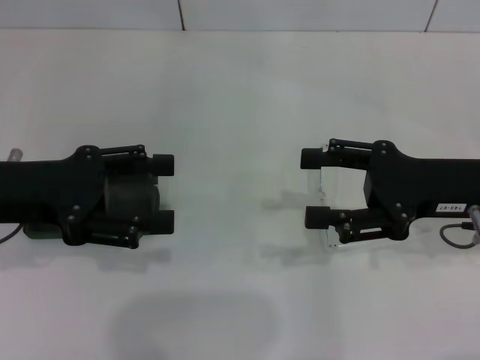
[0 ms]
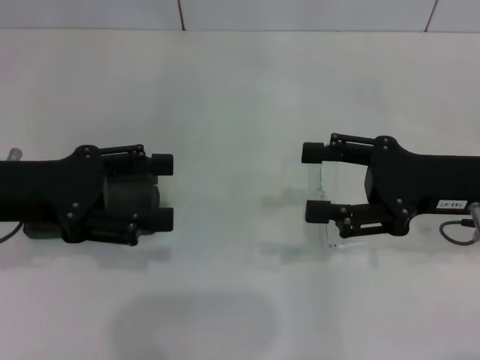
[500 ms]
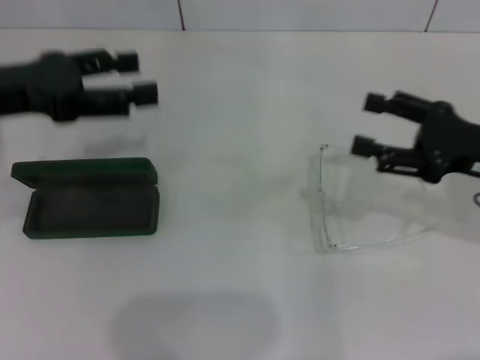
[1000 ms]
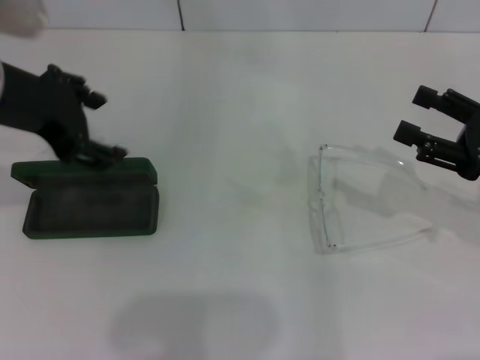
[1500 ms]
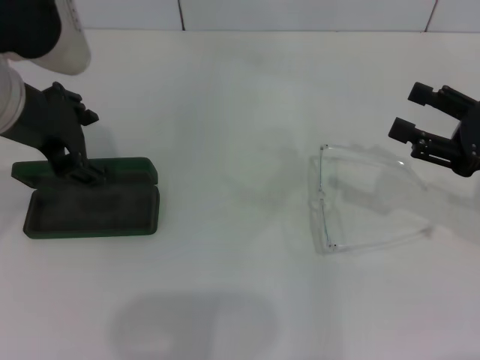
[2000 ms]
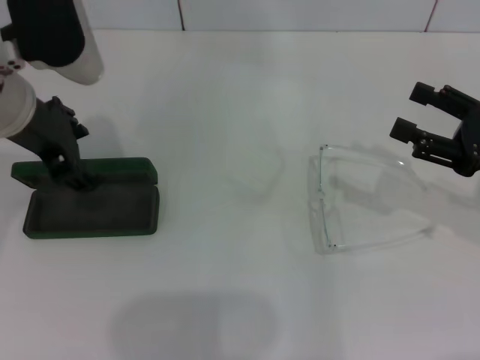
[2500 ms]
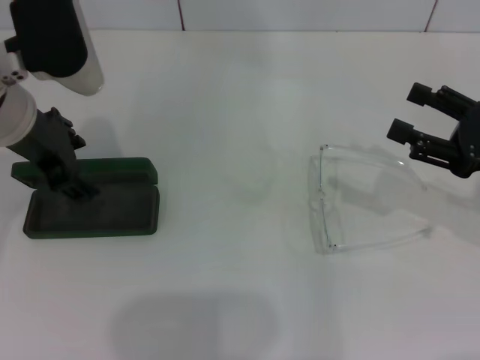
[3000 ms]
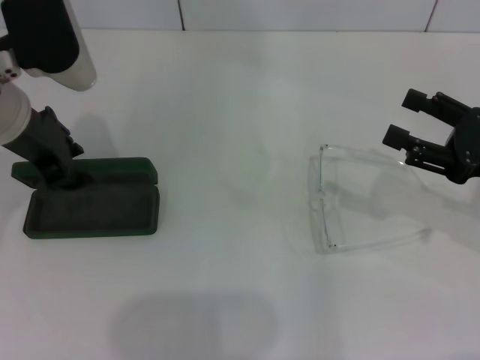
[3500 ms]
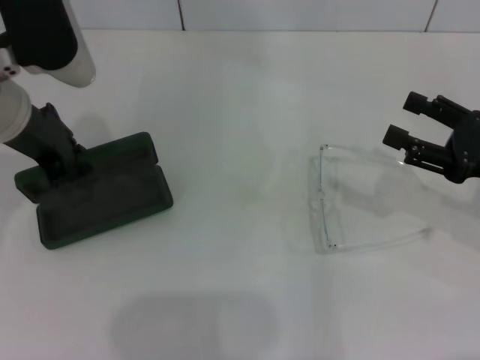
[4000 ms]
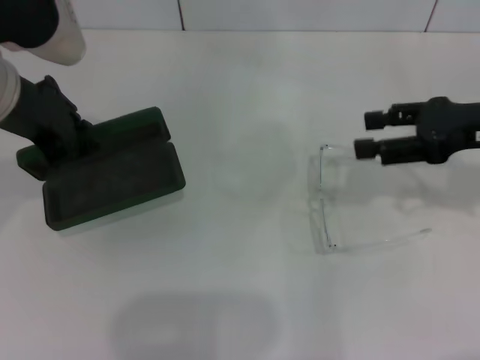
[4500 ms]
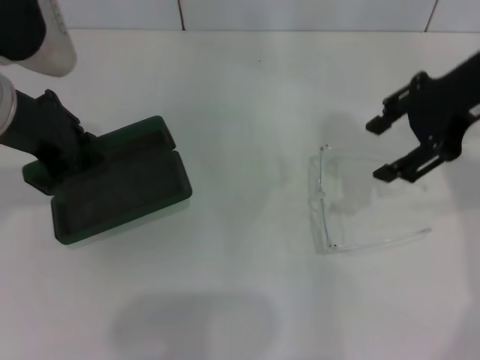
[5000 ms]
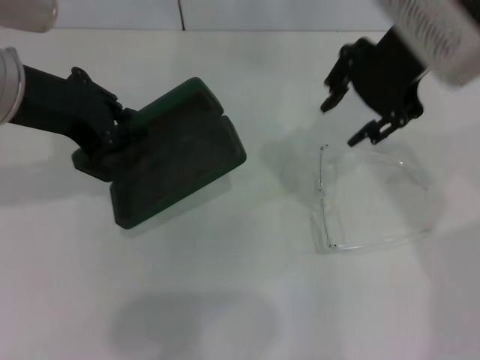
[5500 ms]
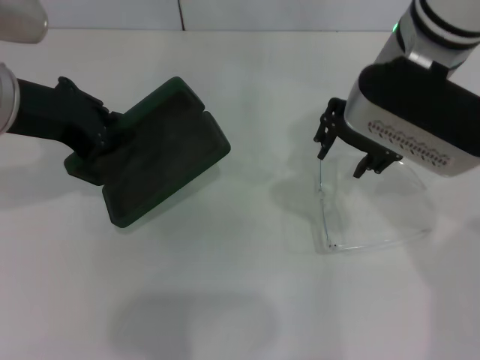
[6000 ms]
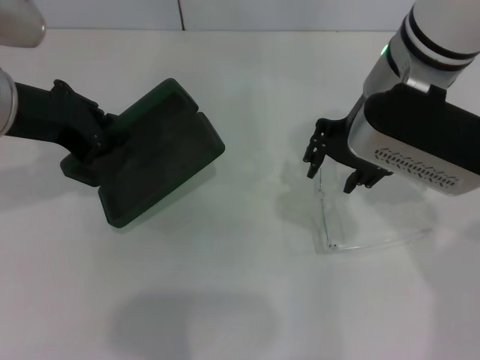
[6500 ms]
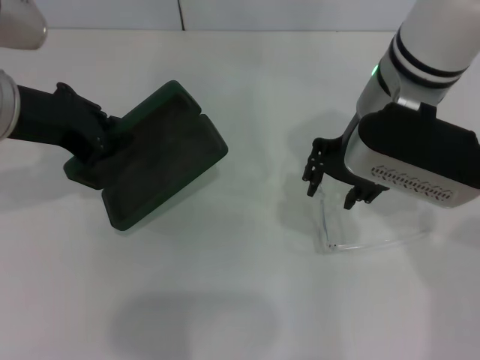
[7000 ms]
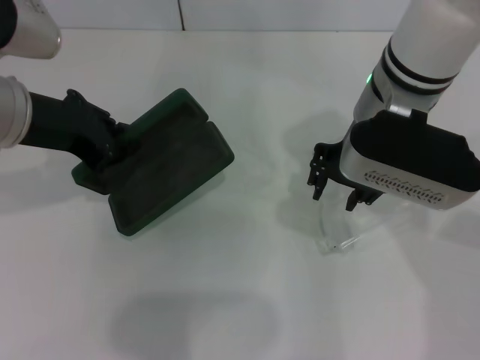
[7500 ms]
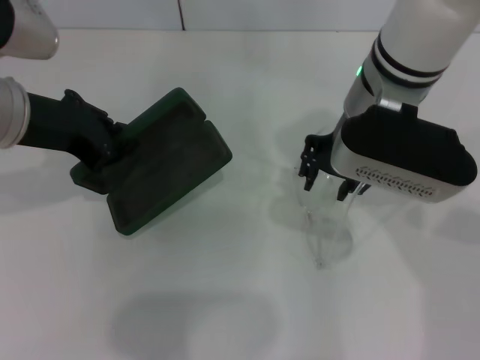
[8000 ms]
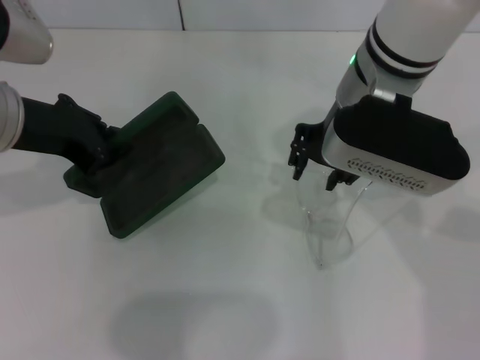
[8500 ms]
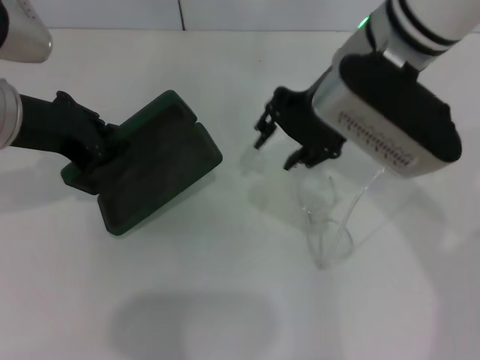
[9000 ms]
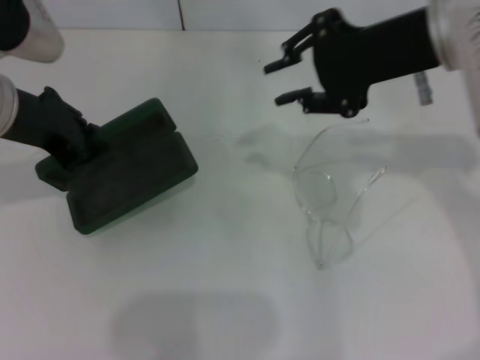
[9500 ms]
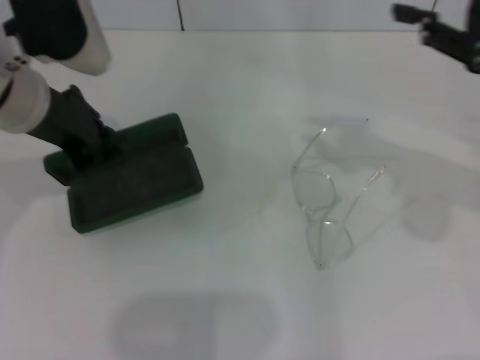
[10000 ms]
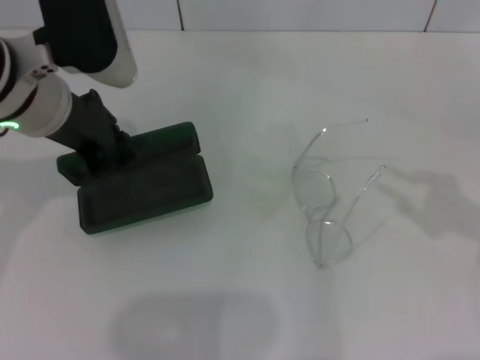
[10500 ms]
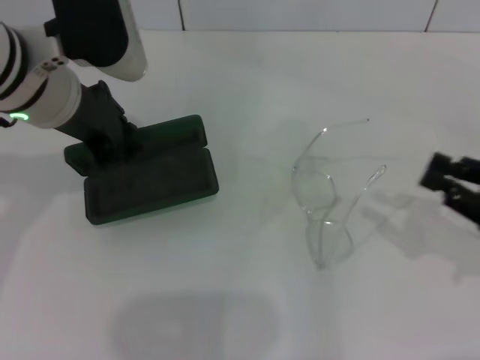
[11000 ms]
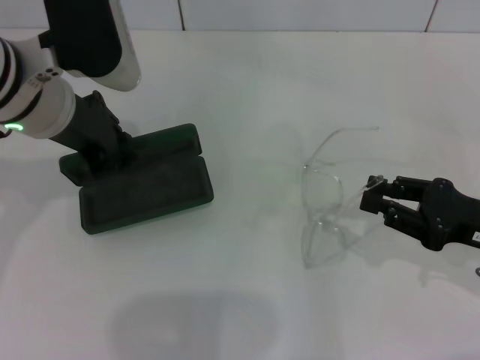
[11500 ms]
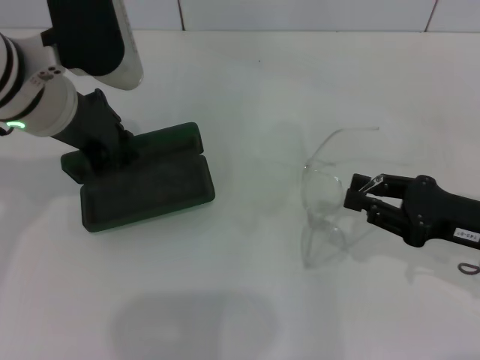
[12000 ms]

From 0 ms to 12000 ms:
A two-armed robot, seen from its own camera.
Step, from 0 ms to 3500 ms: Grab the glasses case with your left hand.
From 0 ms to 2000 ms: The left gripper travels upward and to the right by about 10 cm; the right gripper goes some 5 cm to the right.
From 2000 ms to 4000 ms: The left gripper changes place by some 5 cm, and closes its fingers.
From 4000 ms to 6000 ms: The right gripper heads to the left, upward and forward, covering approximately 25 cm.
From 6000 ms to 8000 ms: There are only small adjustments of the grippers.
From 8000 ms to 10000 ms: The right gripper moves to the right, some 20 cm.
From 10000 ms to 12000 ms: The right gripper heads downward, covering some 20 cm.

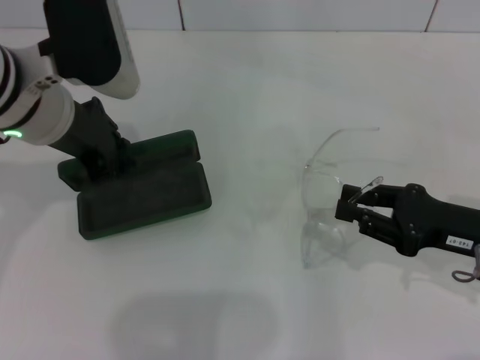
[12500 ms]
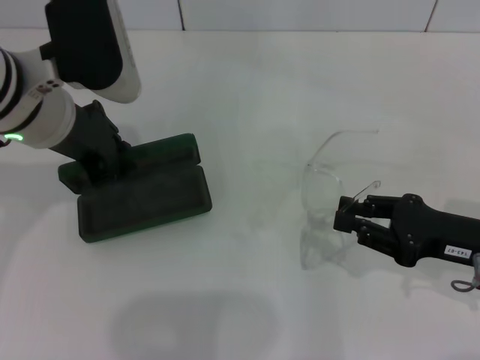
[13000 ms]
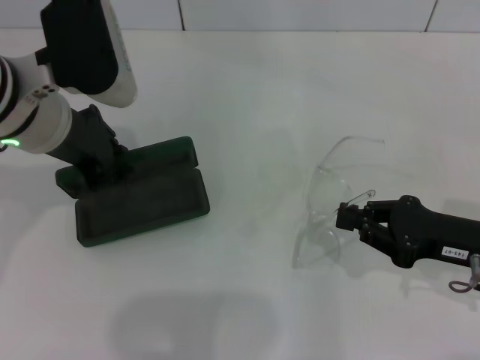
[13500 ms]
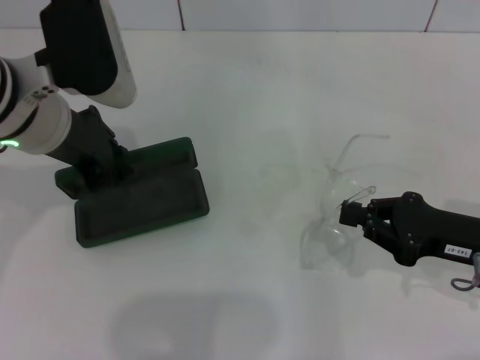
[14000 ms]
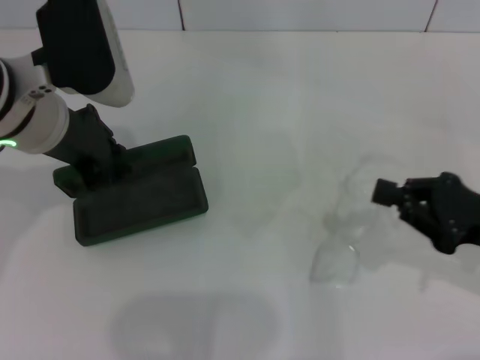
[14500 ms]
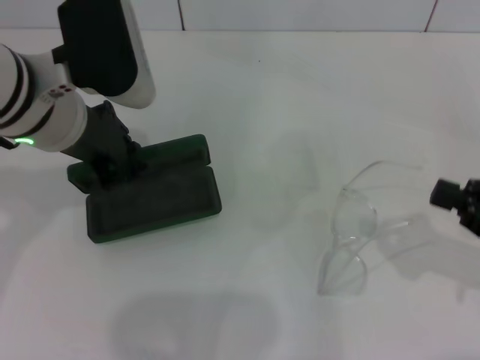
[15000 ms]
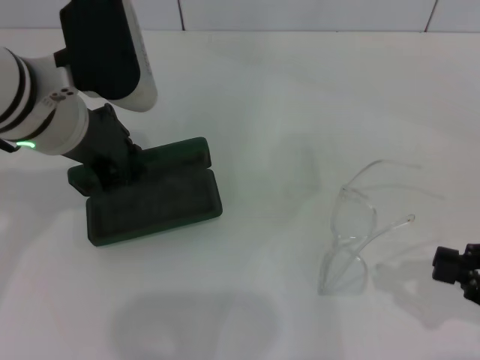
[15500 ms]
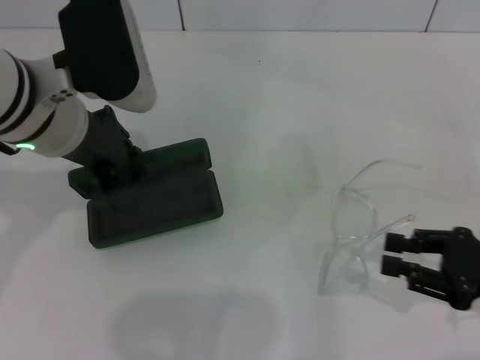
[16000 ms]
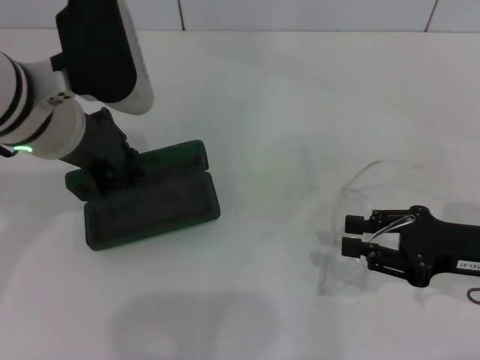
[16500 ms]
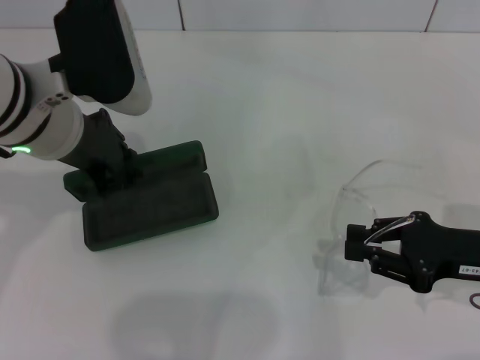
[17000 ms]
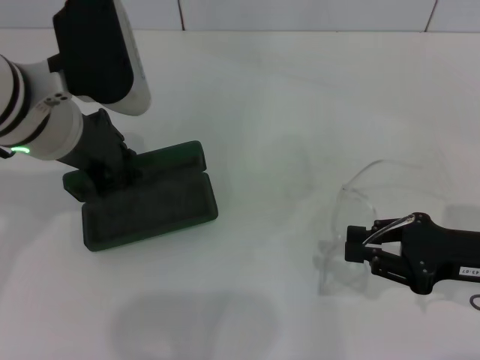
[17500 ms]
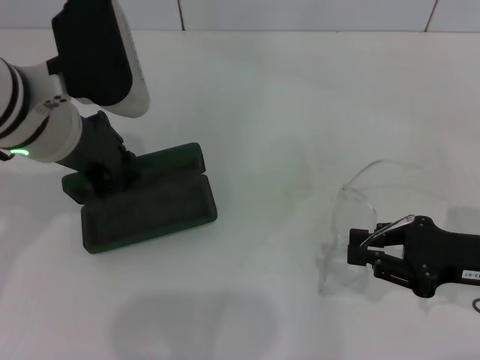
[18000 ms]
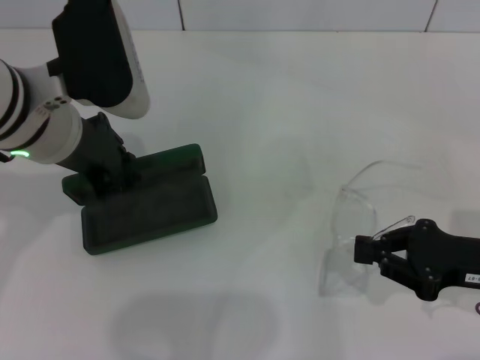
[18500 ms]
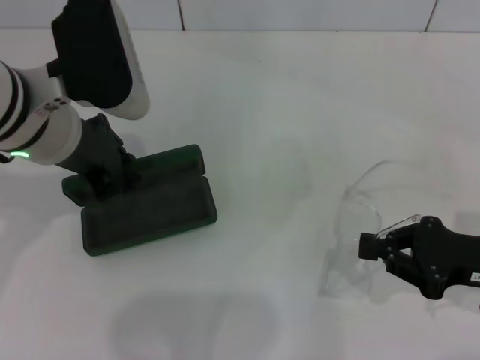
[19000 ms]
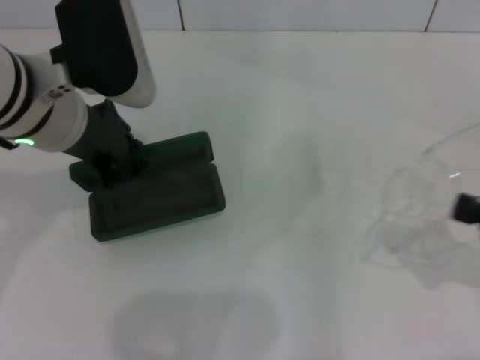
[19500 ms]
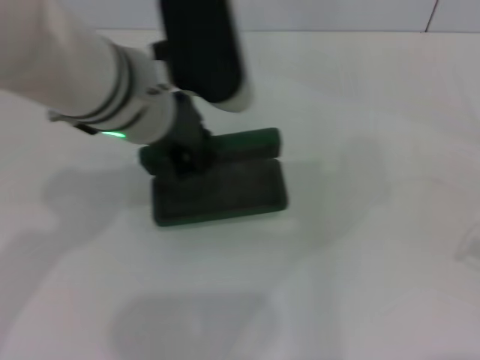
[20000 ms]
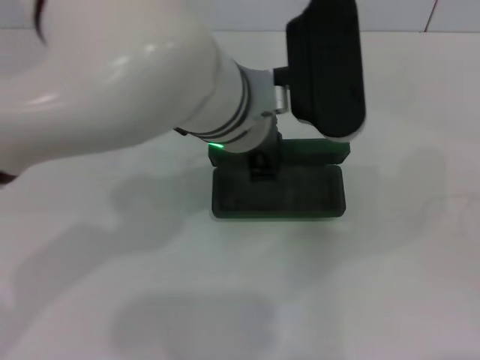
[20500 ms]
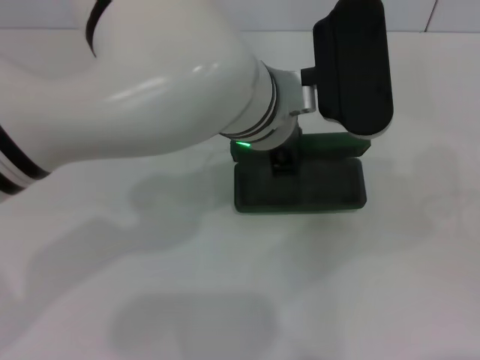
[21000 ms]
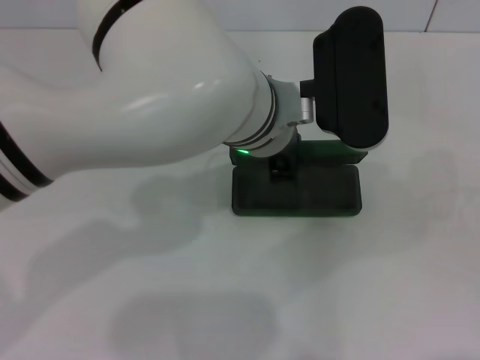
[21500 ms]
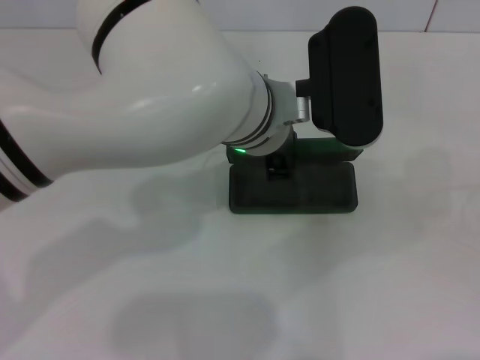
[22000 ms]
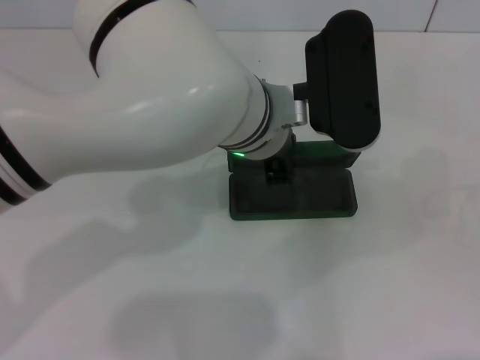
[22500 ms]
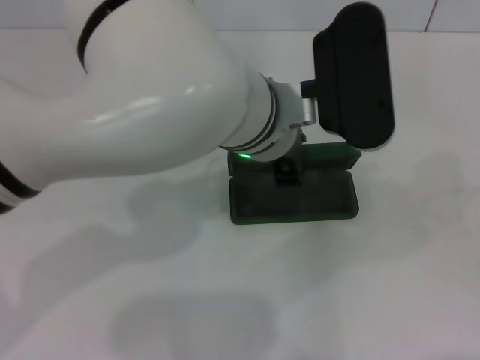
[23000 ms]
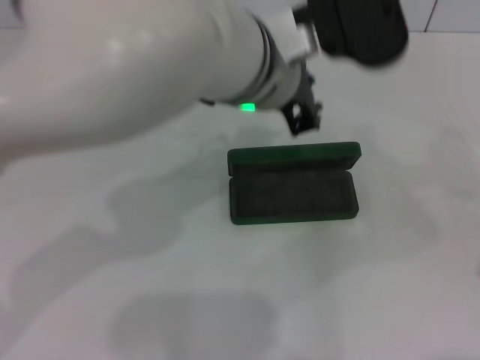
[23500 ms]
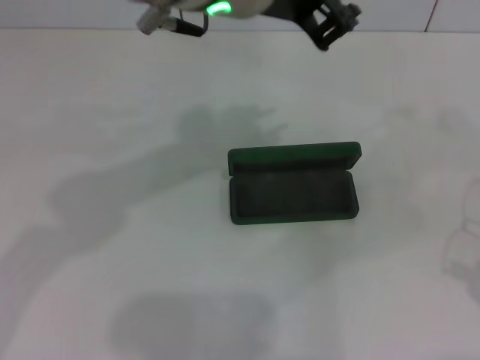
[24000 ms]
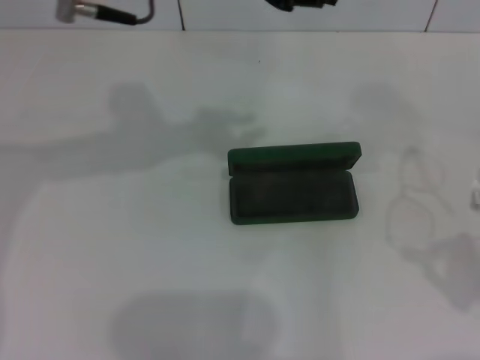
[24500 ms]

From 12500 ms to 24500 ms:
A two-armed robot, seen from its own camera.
Step, from 12500 ms to 18500 ms: Grab the frame with your right hand.
Step, from 19000 ms to 22500 ms: Place the glasses case in the center of the table with your left hand.
From 12500 ms to 14500 ms: The right gripper closes.
From 14500 ms to 16500 ms: The right gripper opens up.
From 16500 ms to 18500 ms: Both grippers stay put.
From 18500 ms to 20500 ms: The right gripper shifts roughly 20 cm to the right, backward and upward; the left gripper shifts roughly 15 cm to the right.
From 20500 ms to 22500 ms: The grippers stay close to where they were, moving slightly.
From 22500 ms to 24500 ms: The right gripper shifts about 5 cm to the left. Meanwhile the left gripper is displaced upward and to the left by approximately 20 cm.

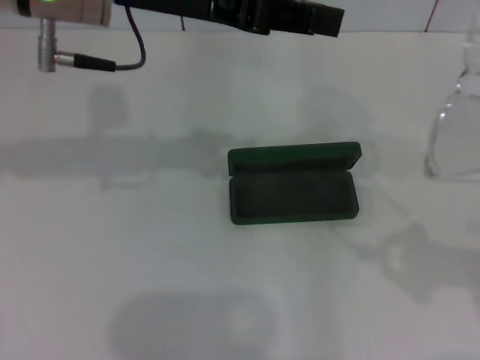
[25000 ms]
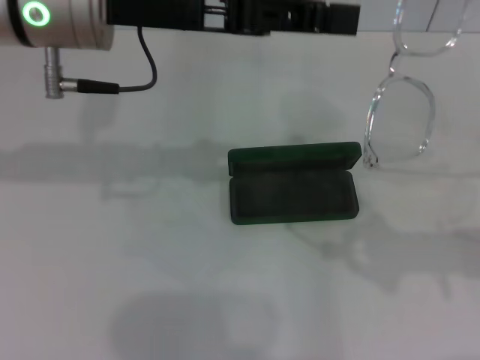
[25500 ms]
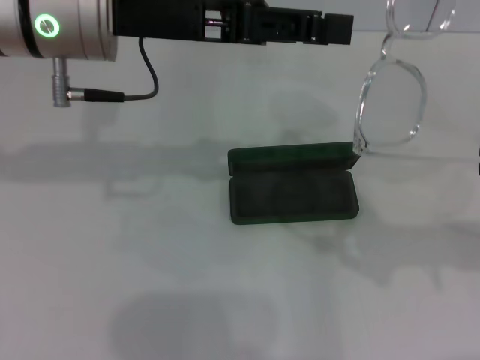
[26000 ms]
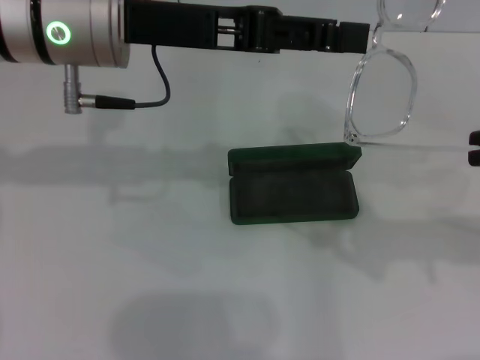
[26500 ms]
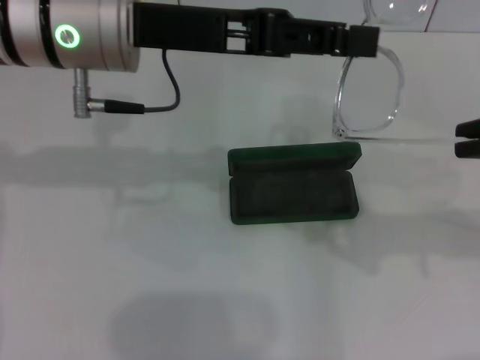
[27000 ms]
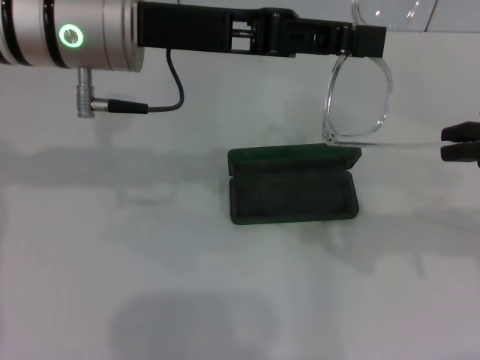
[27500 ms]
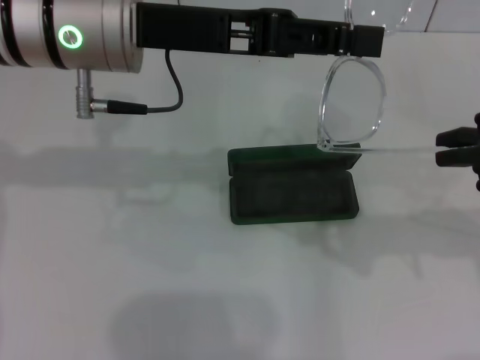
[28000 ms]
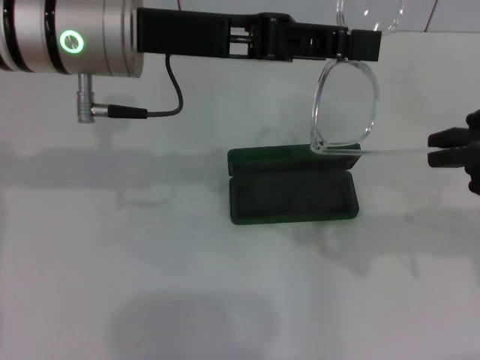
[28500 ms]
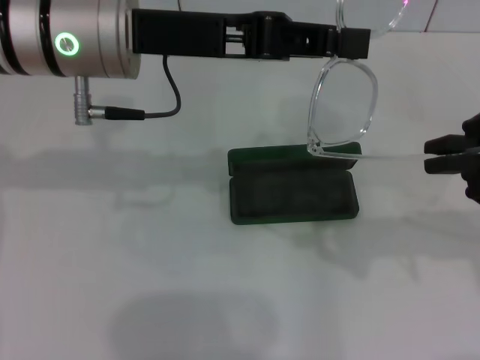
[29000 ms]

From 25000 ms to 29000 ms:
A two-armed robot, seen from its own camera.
From 25000 ms to 27000 ms: The right gripper moves forward and to the left, about 10 cm.
From 27000 ms to 29000 ms: The grippers move only a little.
